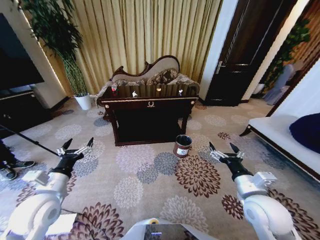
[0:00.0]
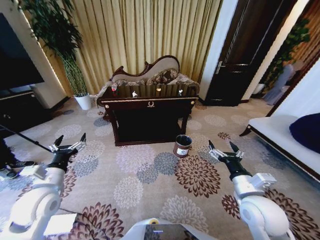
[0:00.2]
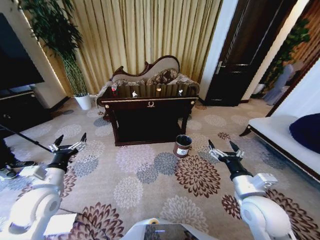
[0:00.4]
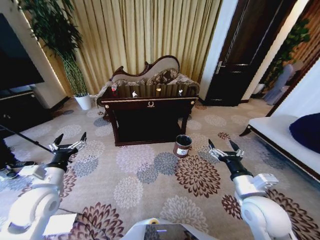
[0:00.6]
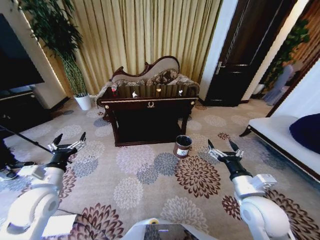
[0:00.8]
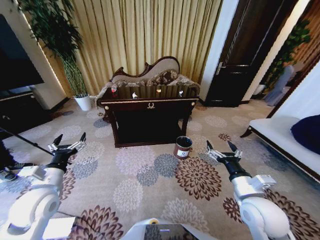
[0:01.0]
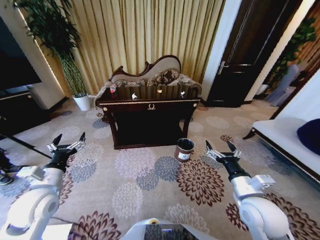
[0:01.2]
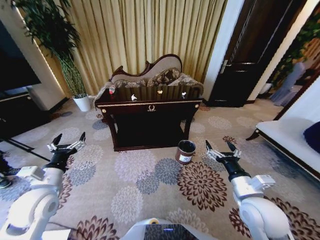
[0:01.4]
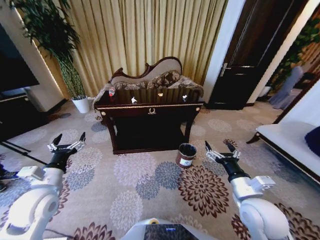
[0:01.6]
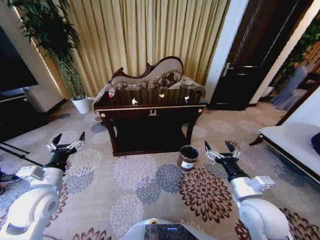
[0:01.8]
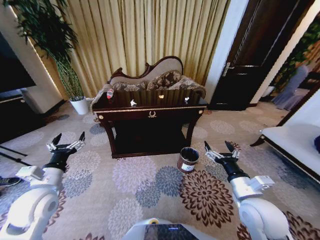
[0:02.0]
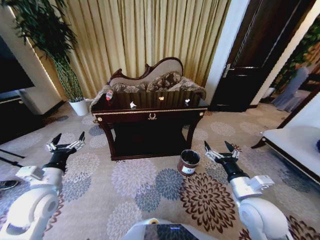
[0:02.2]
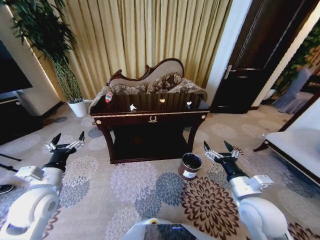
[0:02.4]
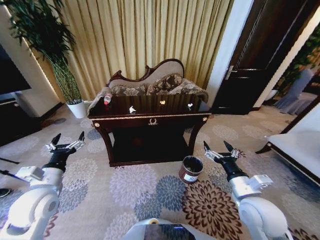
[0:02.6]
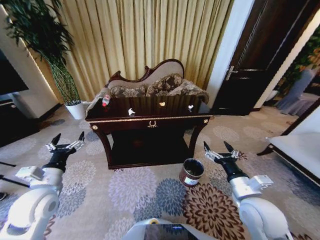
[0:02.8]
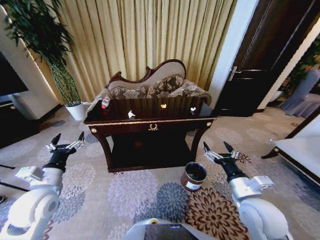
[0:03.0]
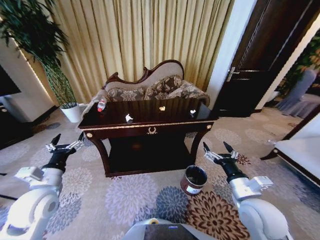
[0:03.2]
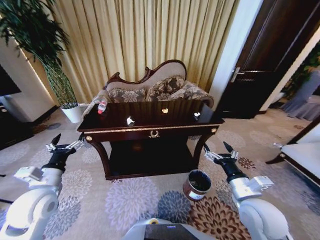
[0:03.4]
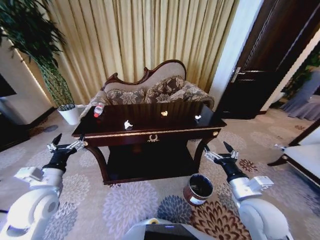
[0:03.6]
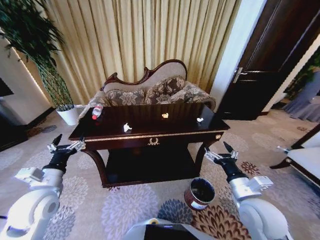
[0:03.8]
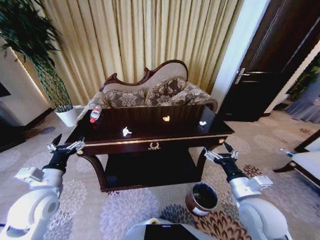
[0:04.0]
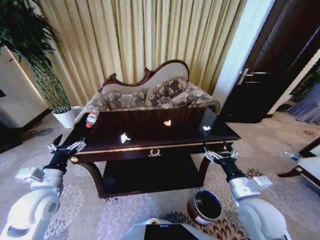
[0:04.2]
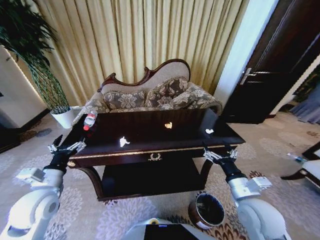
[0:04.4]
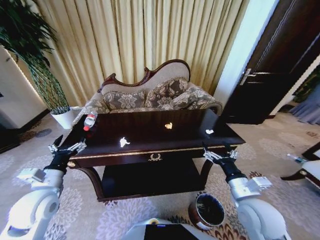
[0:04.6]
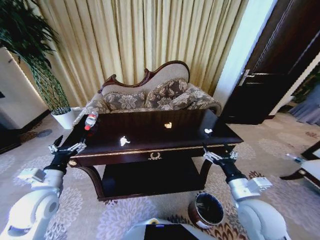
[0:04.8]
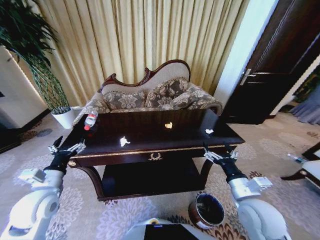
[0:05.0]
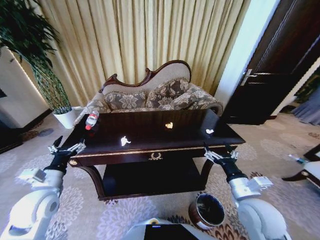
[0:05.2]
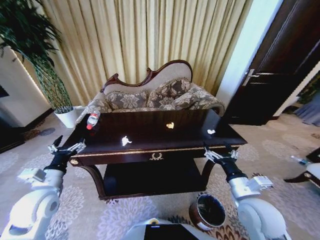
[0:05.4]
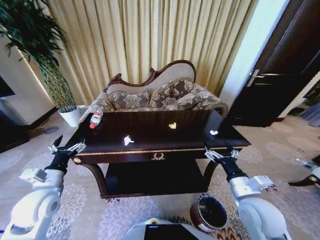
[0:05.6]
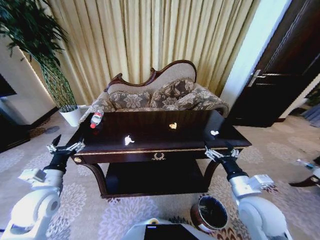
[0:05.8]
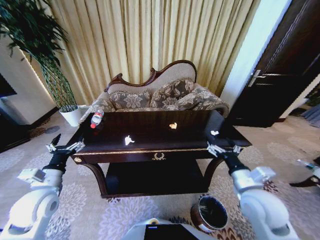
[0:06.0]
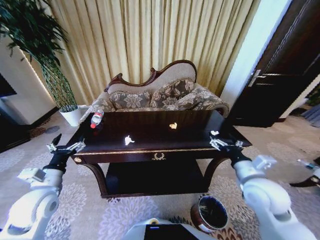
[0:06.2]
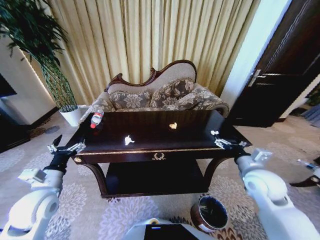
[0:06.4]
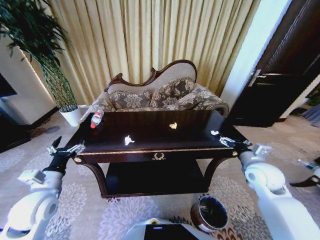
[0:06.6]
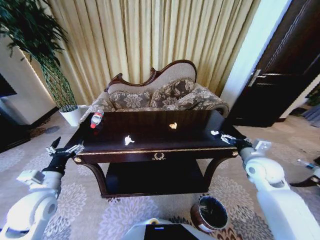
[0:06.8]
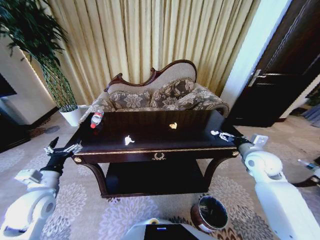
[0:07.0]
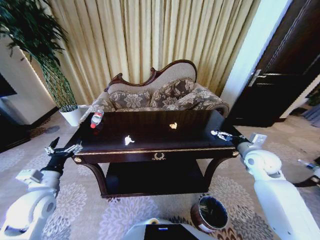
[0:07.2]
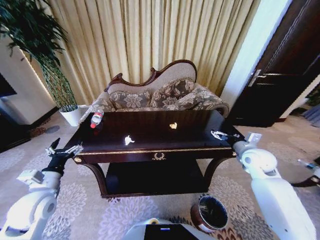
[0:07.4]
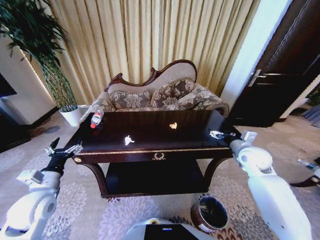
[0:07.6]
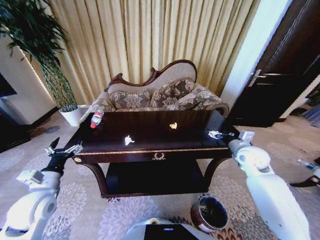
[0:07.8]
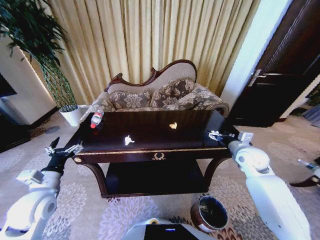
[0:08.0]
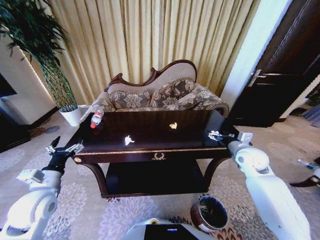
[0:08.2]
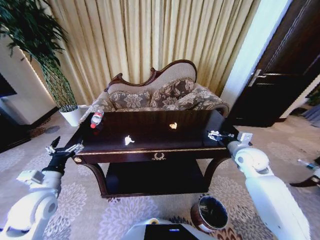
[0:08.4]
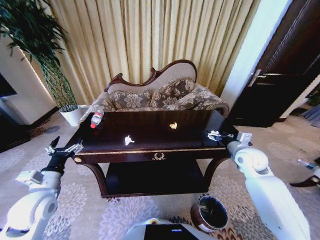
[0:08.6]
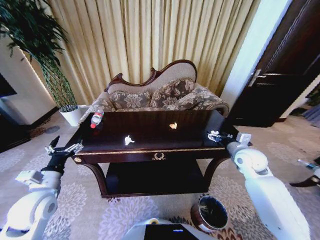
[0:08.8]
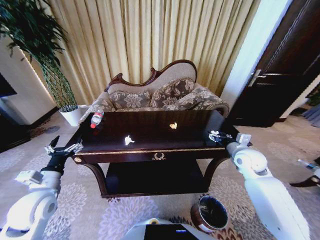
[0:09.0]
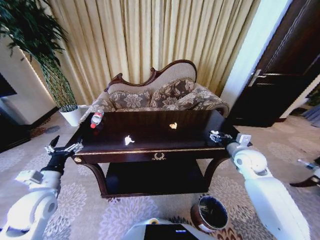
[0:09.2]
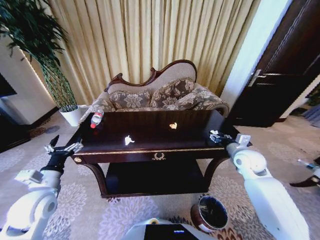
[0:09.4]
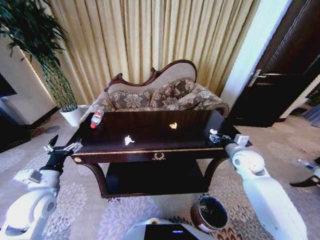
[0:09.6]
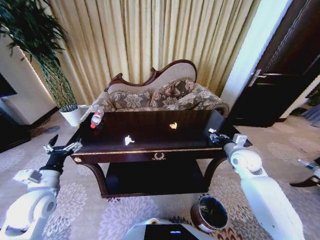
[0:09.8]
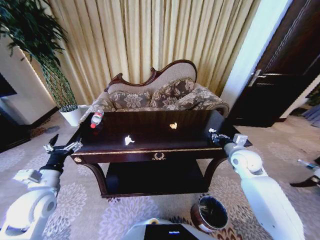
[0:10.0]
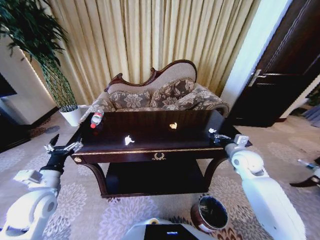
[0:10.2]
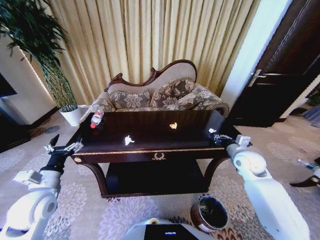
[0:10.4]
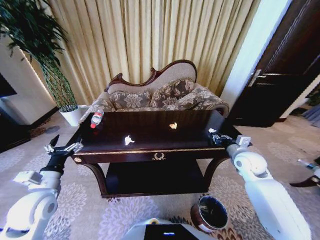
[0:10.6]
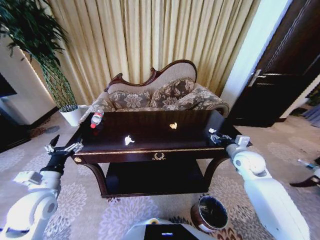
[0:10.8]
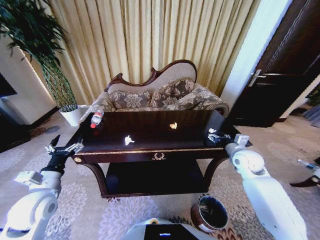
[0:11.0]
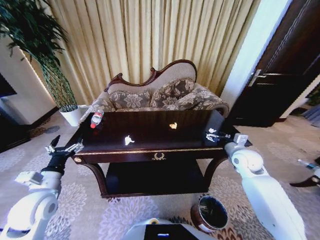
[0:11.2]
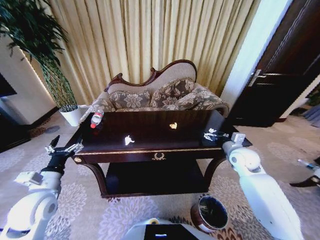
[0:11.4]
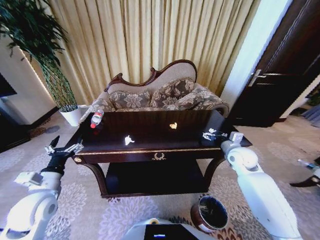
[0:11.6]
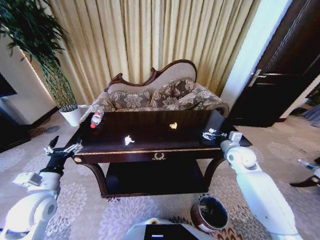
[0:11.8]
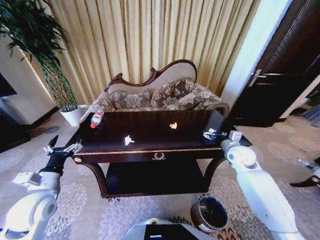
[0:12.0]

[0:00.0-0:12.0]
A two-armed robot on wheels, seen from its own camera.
Task of the whole recording: Move to the front of the table and place the trash on the table into the trash bin.
0:06.0 to 0:07.6: The right gripper shifts some 20 cm forward and to the right.
0:07.6 to 0:09.0: The grippers make only small movements.
0:09.0 to 0:10.4: The right gripper closes its fingers.
0:10.4 to 0:12.0: The right gripper opens its fingers.

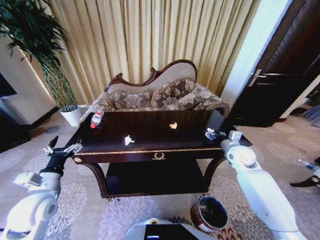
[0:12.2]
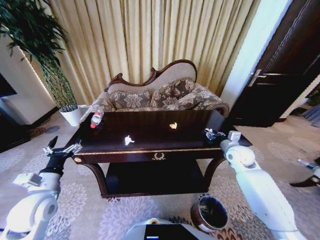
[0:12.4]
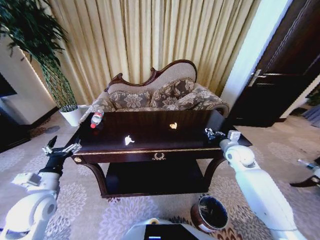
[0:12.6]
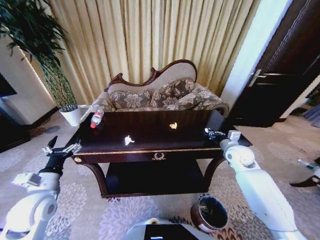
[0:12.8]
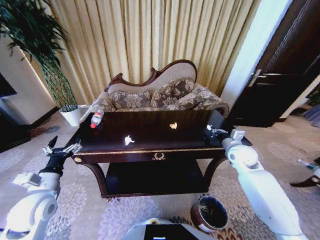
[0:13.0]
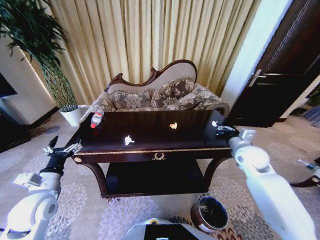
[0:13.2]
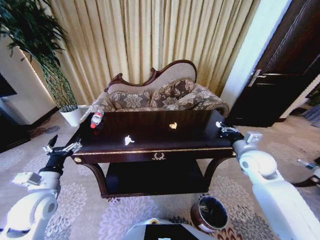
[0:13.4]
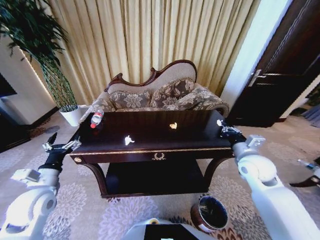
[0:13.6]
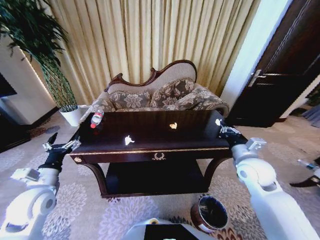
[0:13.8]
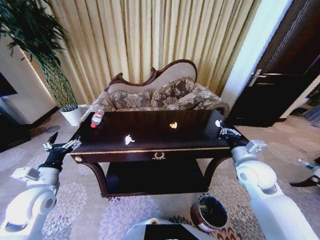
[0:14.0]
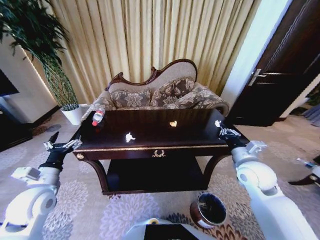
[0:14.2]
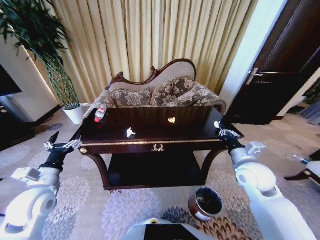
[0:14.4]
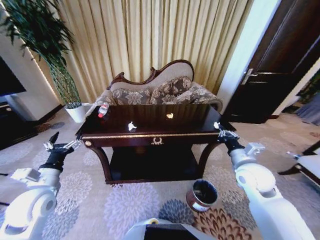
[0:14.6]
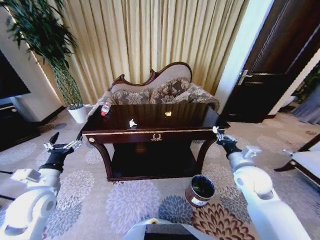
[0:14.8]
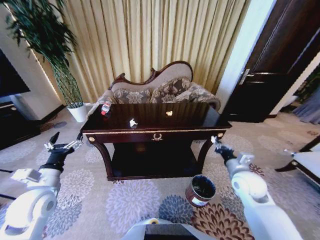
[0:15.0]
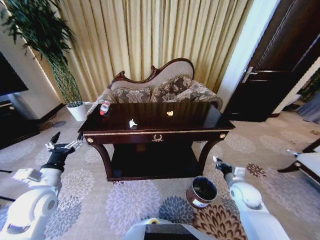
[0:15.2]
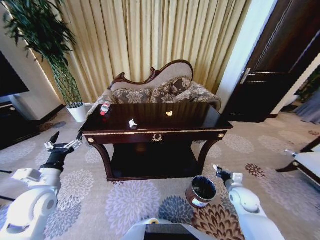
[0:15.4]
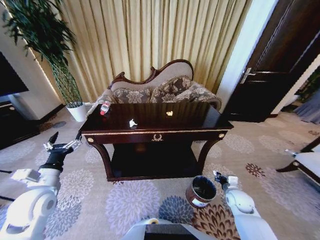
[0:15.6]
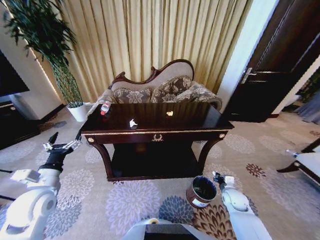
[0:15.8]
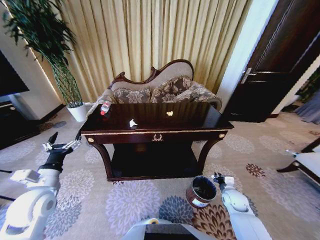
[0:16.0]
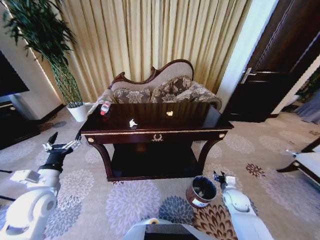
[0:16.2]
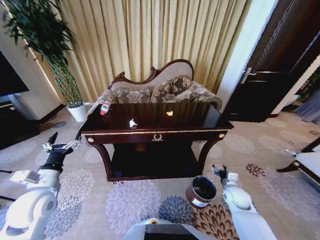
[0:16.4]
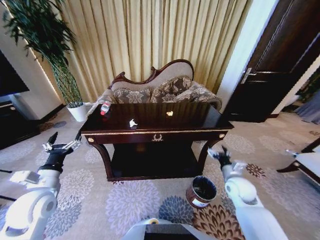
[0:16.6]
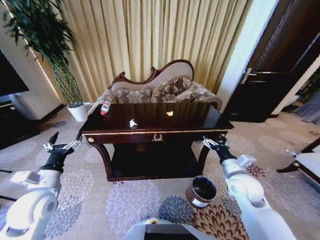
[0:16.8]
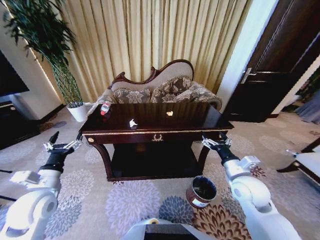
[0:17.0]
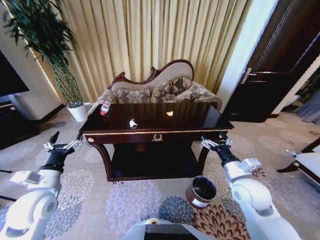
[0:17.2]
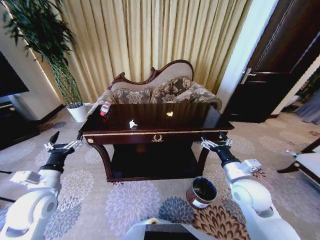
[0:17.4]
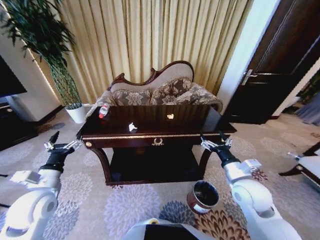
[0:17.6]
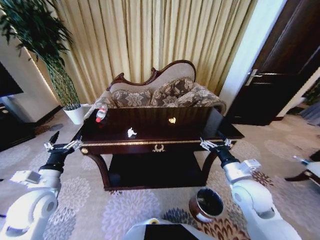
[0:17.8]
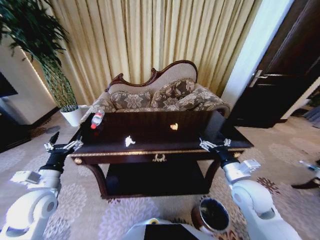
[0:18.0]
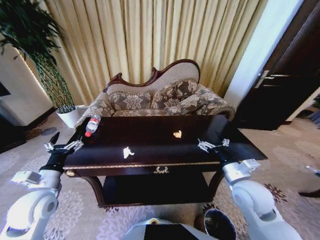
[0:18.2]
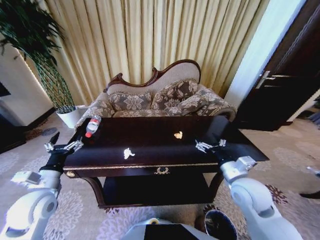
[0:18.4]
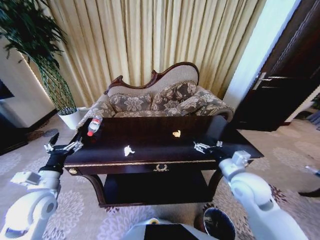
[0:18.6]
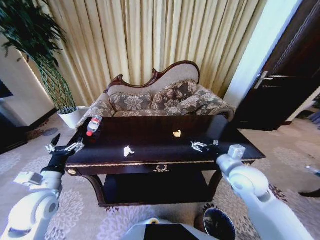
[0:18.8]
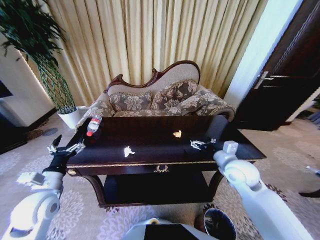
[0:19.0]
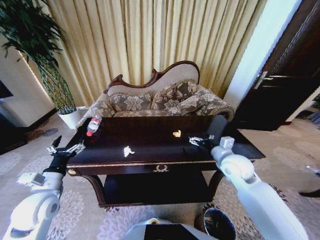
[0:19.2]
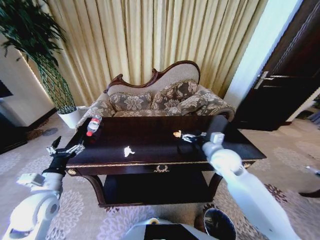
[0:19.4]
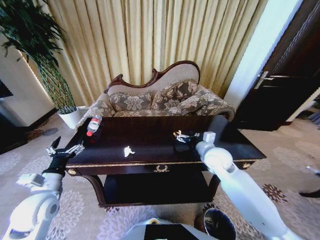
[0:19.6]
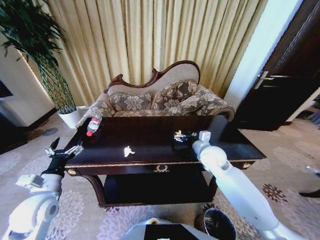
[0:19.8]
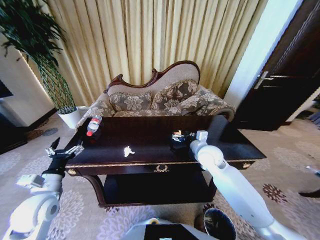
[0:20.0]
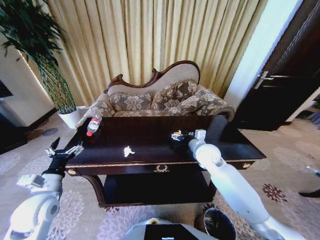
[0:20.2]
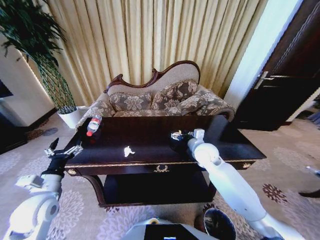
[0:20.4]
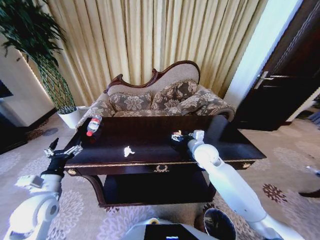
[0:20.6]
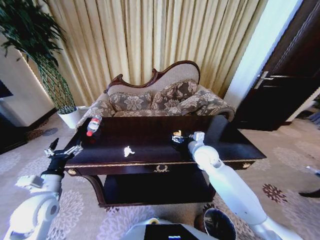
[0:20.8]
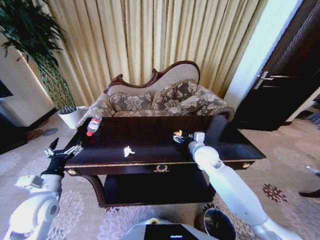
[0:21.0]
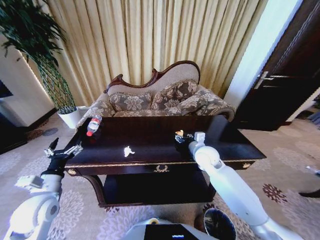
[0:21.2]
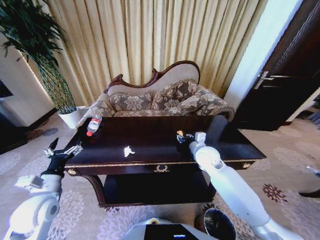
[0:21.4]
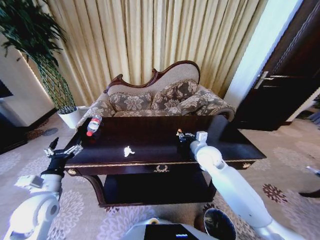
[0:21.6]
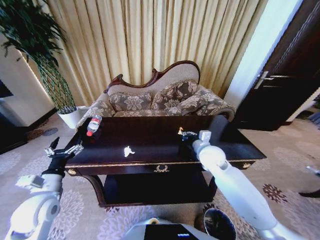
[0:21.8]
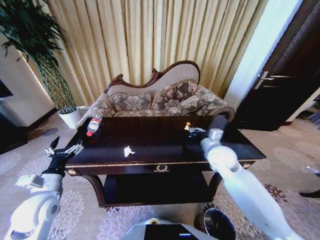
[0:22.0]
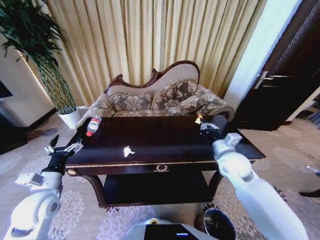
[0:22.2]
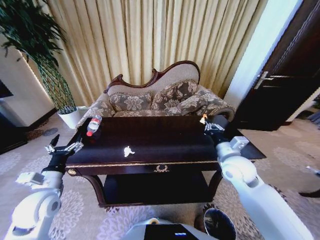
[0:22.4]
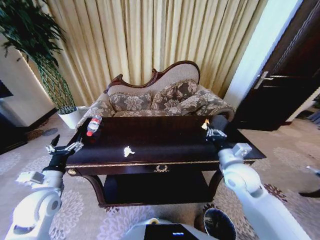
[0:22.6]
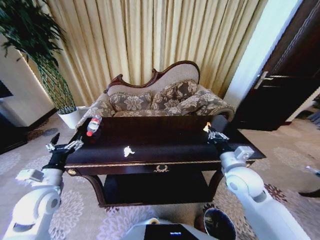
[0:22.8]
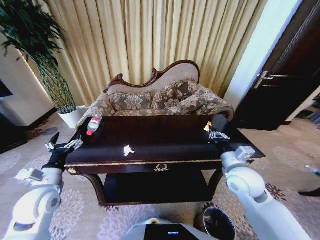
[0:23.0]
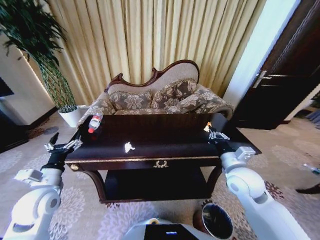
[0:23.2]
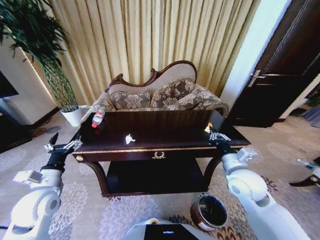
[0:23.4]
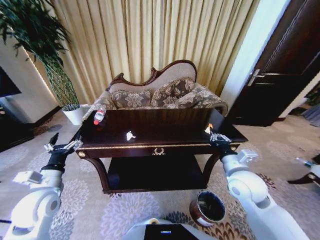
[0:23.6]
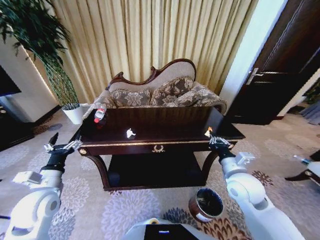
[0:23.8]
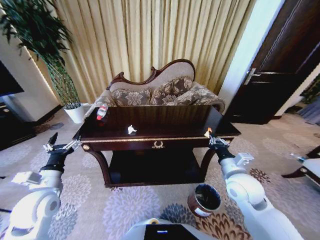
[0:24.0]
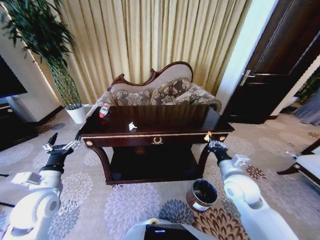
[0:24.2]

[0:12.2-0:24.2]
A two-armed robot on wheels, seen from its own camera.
Task of the whole recording: Move to the front of the table and place the trash on the table into the trash bin.
0:12.2 to 0:13.8: The right gripper goes roughly 10 cm backward, and closes up.
0:13.8 to 0:15.2: The right gripper heads downward, covering roughly 15 cm.
0:15.2 to 0:16.6: The right gripper moves roughly 10 cm downward and comes back, and opens its fingers.
0:16.6 to 0:18.2: The right gripper shifts about 10 cm upward, backward and to the left.
0:18.2 to 0:19.8: The right gripper shifts approximately 15 cm forward and to the left.
0:19.8 to 0:21.2: The grippers move only a little.
0:21.2 to 0:22.6: The right gripper travels backward and to the right by approximately 15 cm, and closes up.
